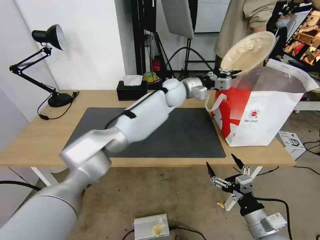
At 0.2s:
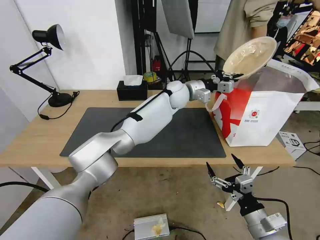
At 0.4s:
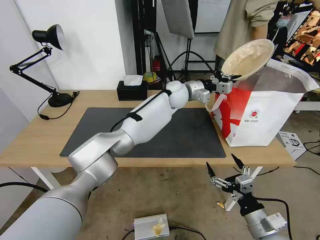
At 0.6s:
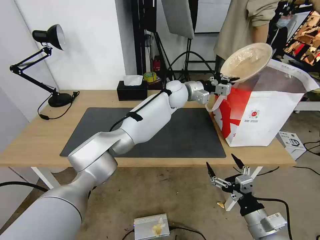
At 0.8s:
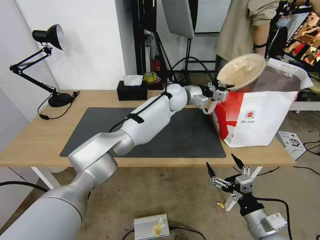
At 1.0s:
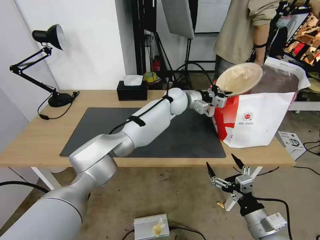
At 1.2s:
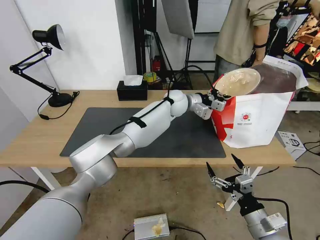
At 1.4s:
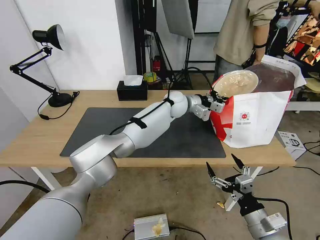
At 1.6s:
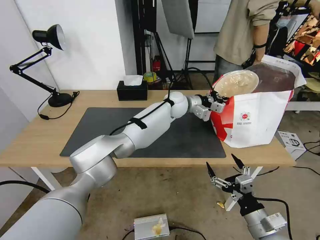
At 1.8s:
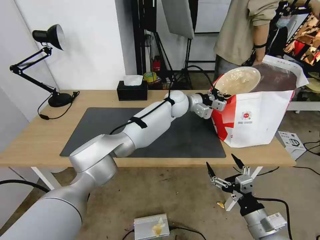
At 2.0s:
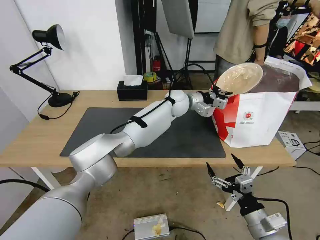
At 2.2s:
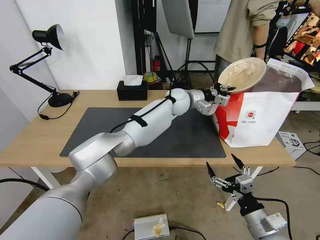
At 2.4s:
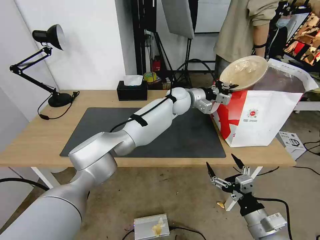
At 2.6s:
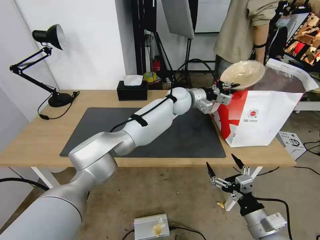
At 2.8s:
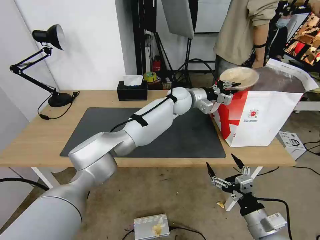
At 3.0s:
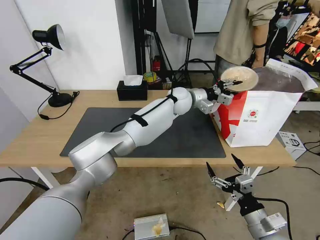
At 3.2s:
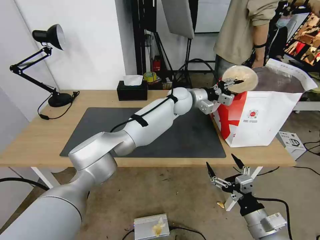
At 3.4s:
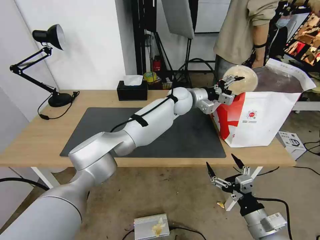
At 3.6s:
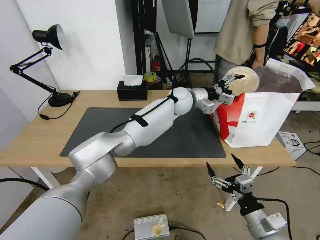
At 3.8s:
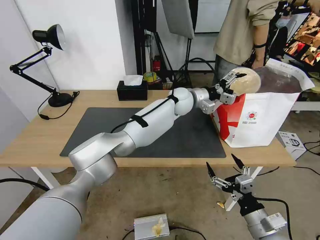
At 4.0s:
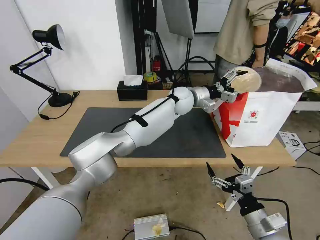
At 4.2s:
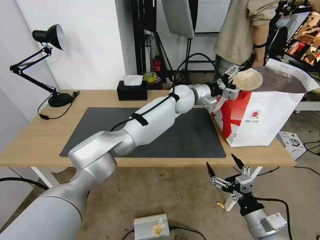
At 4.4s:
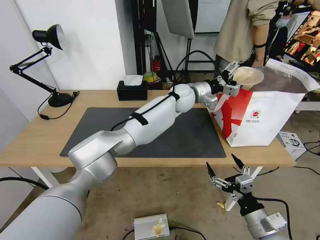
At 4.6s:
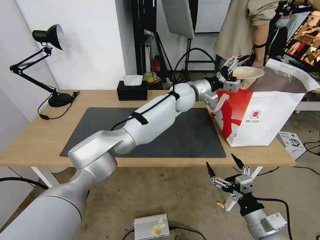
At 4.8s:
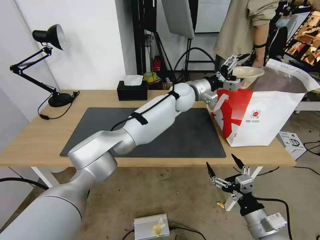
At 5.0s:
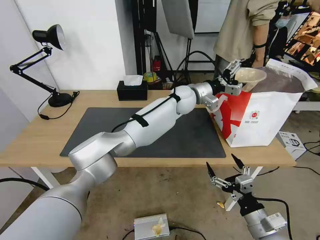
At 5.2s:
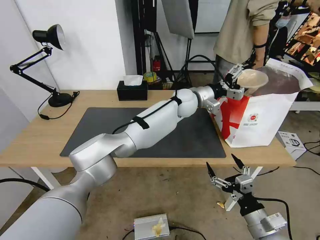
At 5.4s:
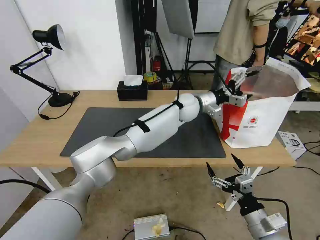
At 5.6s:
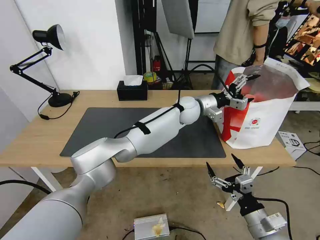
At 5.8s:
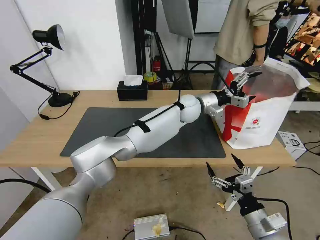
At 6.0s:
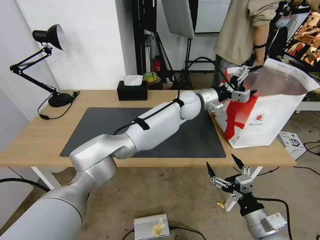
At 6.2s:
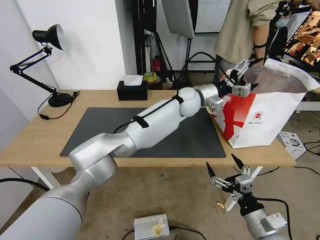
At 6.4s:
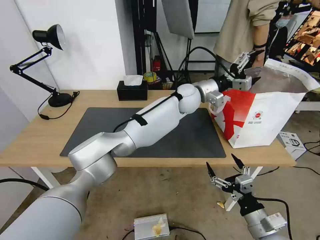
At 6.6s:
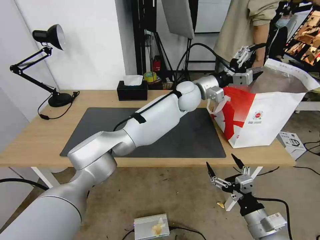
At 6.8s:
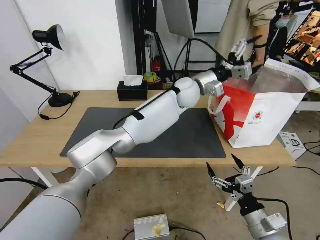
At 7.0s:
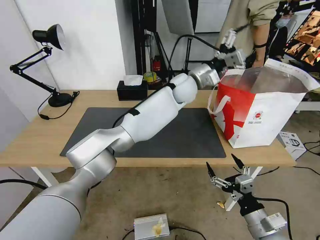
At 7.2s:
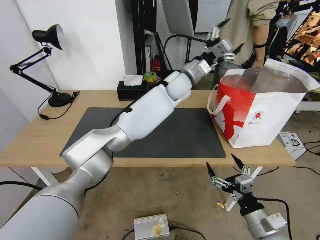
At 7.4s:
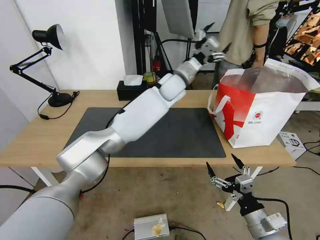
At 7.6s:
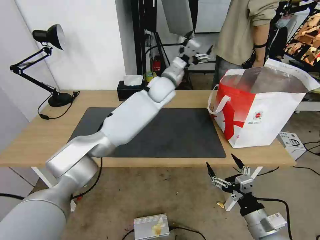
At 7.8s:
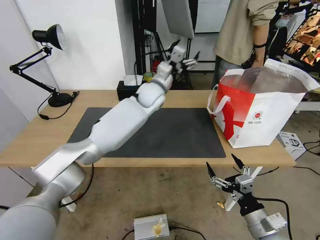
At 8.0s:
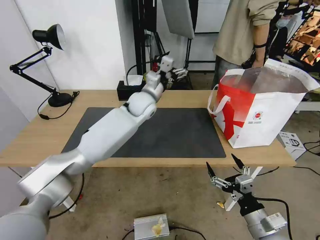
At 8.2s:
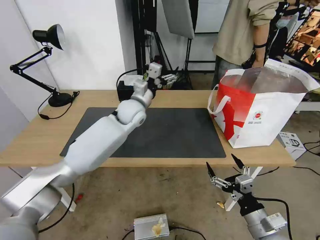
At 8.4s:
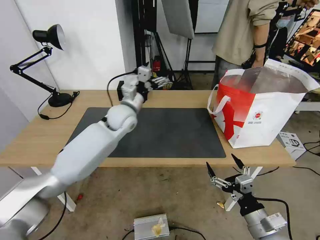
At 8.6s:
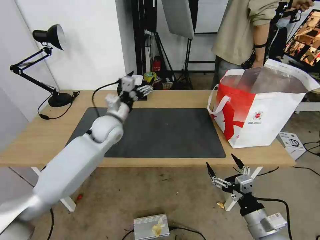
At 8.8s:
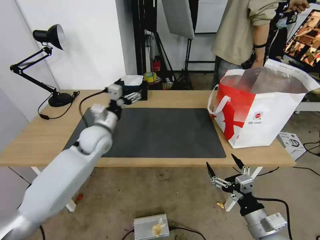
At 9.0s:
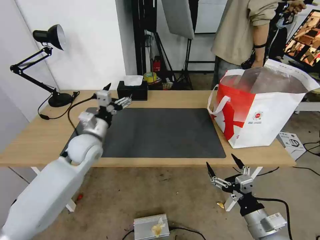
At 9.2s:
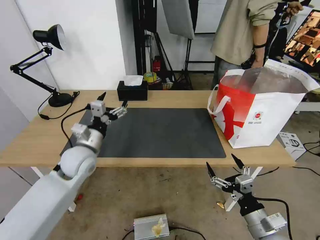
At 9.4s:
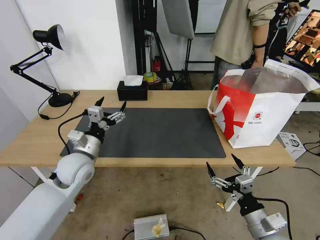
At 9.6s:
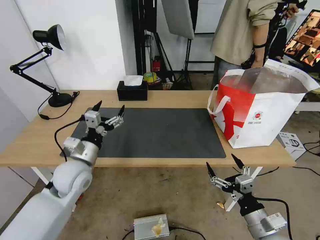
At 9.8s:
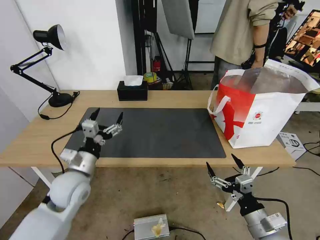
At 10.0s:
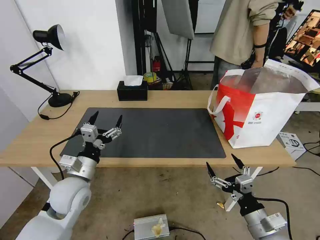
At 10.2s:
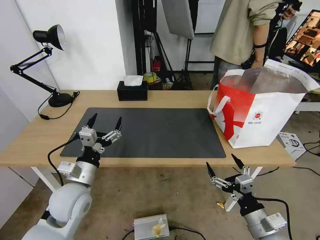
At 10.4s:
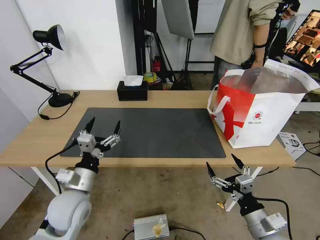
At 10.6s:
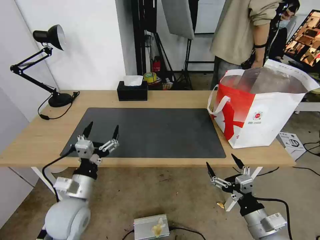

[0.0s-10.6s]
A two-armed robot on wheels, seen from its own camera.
Task of the whole recording: Pick up the trash from the table and place it into the takeout bag.
0.0s to 1.6s: The left gripper travels downward by roughly 5 cm.
1.6s to 3.0s: The left gripper opens up.
3.0s to 4.6s: The left gripper opens.
4.6s to 6.0s: The grippers stay close to where they were, moving slightly.
6.0s to 7.6s: The left gripper shifts some 10 cm to the left.
7.6s to 9.0s: The left gripper moves to the left, backward and downward, roughly 30 cm.
9.0s to 10.6s: The left gripper is displaced backward by roughly 15 cm.

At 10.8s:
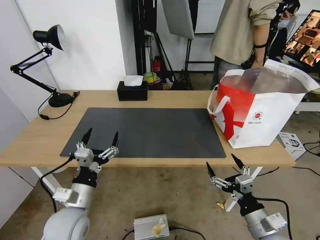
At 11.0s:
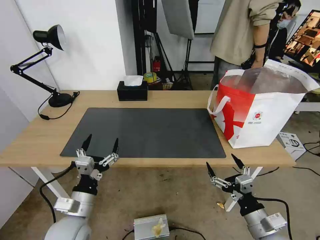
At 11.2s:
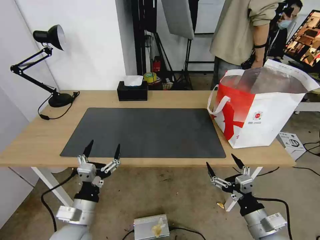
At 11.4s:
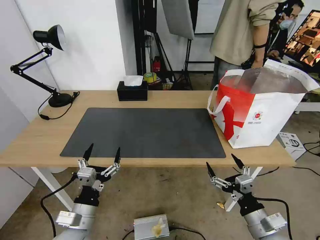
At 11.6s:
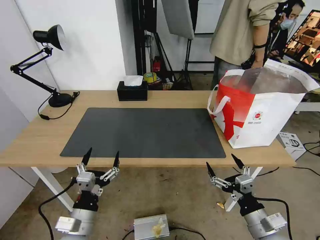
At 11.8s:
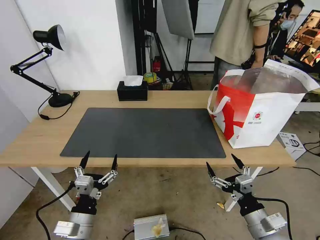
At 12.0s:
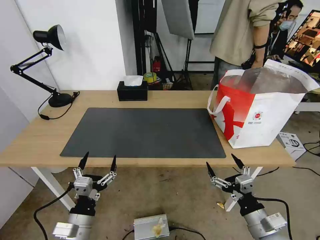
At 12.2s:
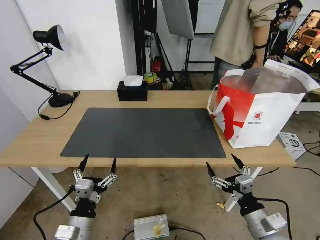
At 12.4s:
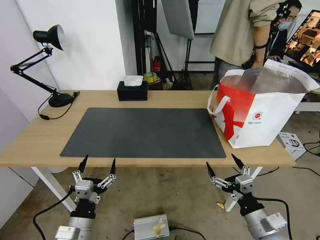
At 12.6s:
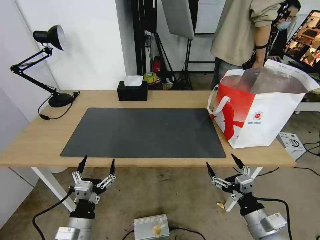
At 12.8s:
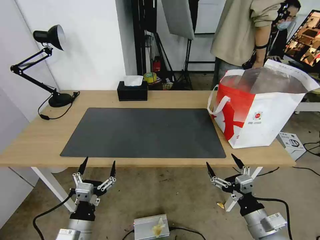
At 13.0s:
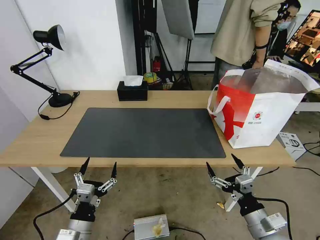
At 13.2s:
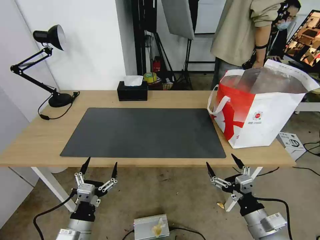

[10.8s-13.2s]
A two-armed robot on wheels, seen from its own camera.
Task of the whole recording: Pick up the trash from the table and place it into the takeout bag.
10.8s to 12.0s: The left gripper goes some 5 cm backward.
12.0s to 13.2s: There are only small adjustments of the grippers.

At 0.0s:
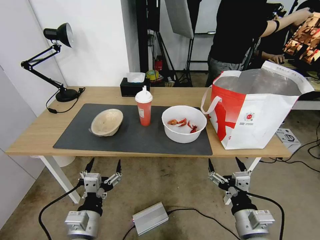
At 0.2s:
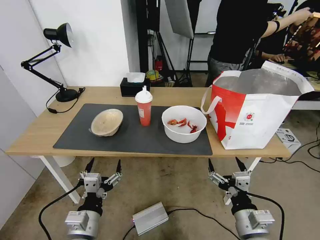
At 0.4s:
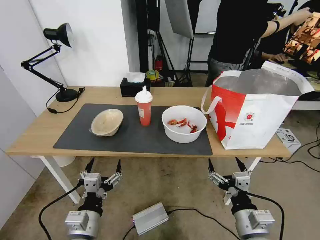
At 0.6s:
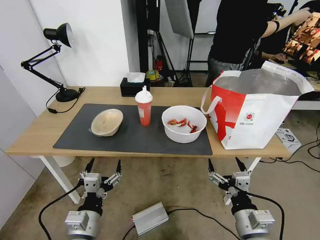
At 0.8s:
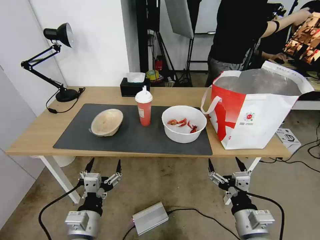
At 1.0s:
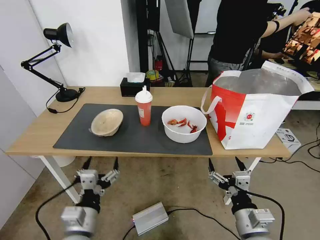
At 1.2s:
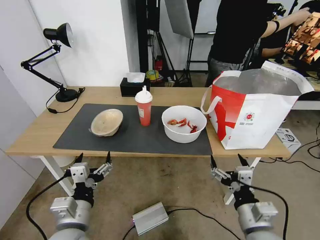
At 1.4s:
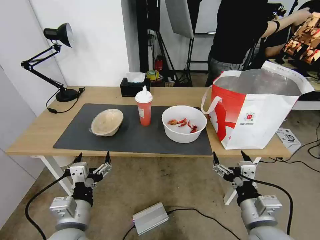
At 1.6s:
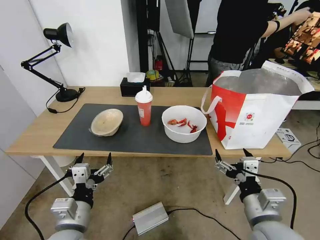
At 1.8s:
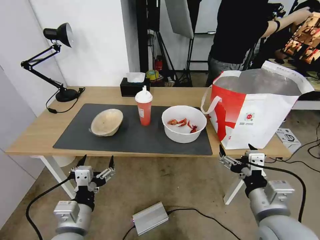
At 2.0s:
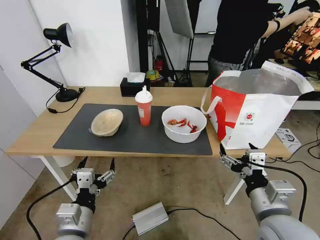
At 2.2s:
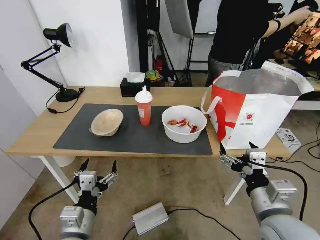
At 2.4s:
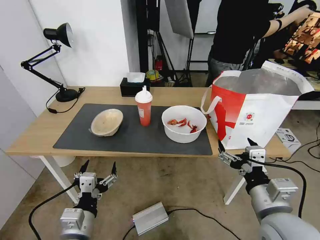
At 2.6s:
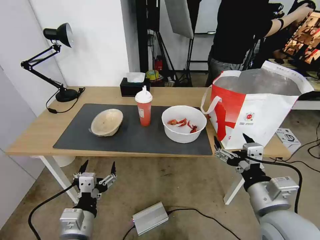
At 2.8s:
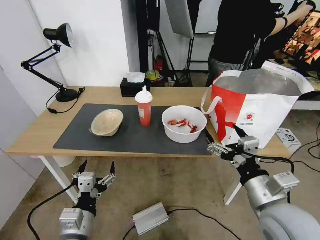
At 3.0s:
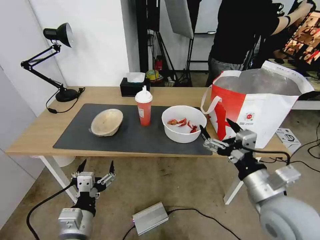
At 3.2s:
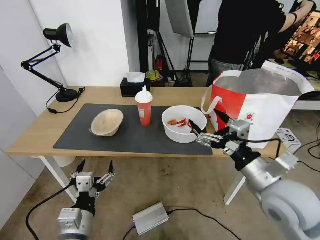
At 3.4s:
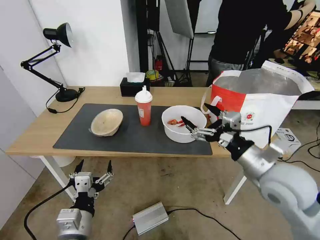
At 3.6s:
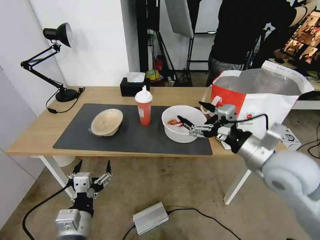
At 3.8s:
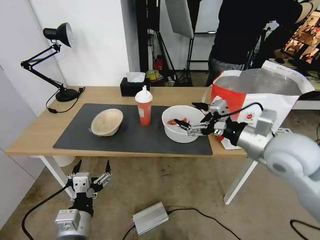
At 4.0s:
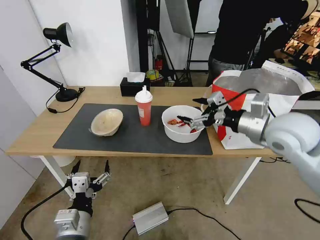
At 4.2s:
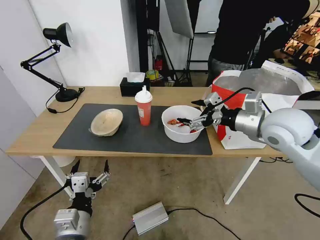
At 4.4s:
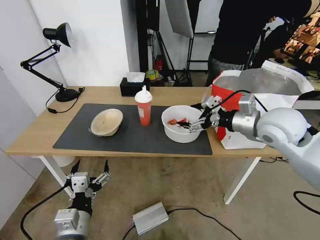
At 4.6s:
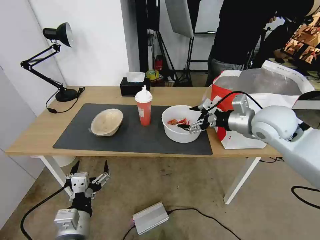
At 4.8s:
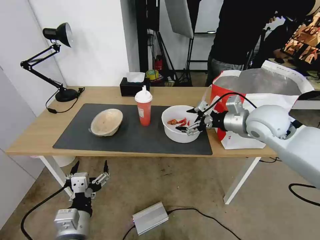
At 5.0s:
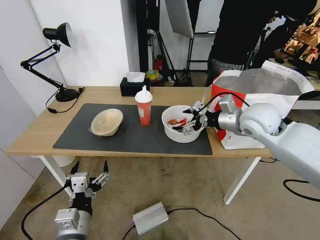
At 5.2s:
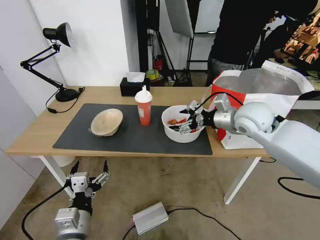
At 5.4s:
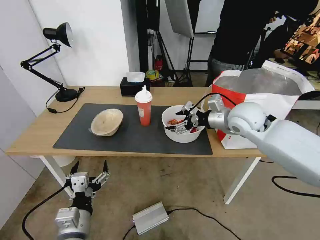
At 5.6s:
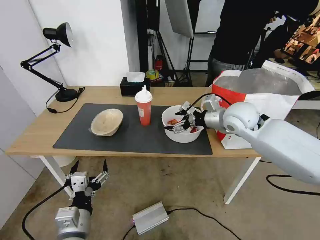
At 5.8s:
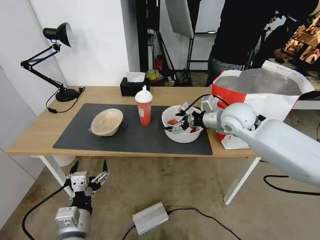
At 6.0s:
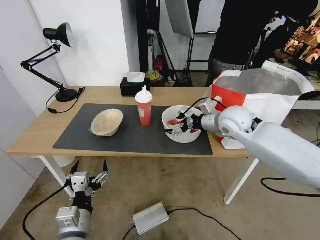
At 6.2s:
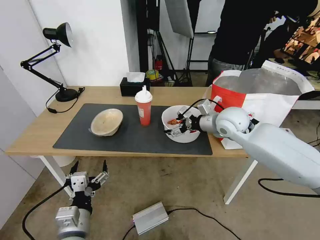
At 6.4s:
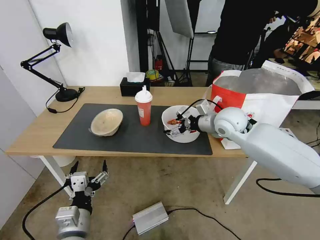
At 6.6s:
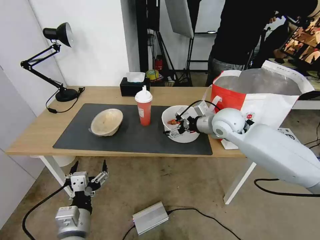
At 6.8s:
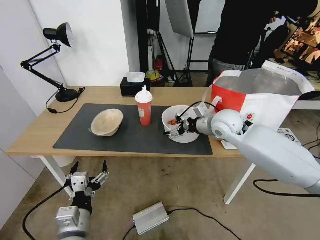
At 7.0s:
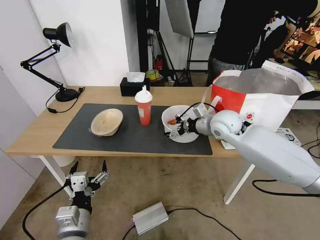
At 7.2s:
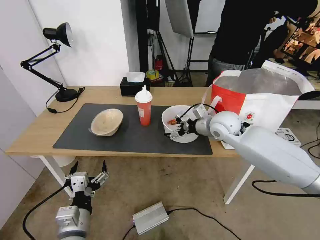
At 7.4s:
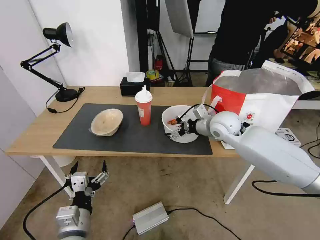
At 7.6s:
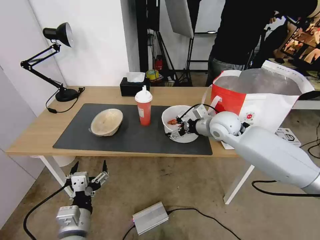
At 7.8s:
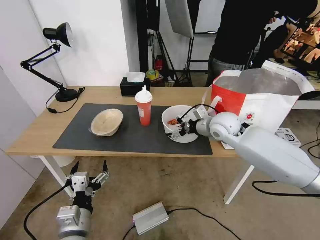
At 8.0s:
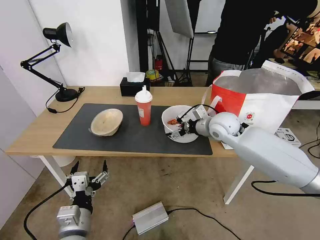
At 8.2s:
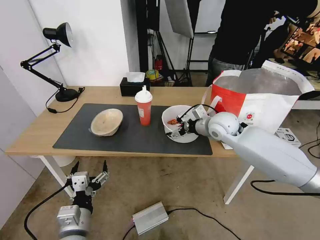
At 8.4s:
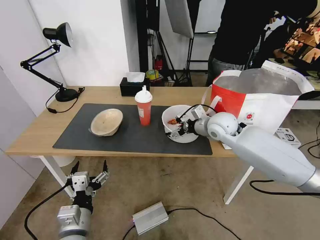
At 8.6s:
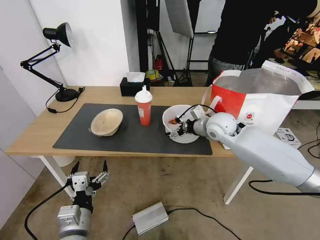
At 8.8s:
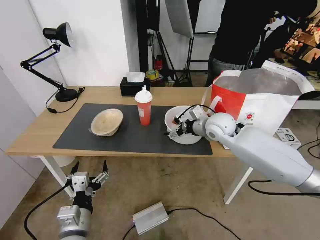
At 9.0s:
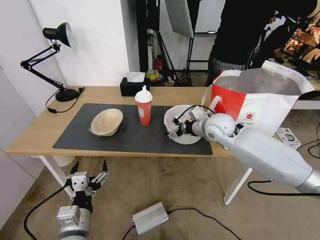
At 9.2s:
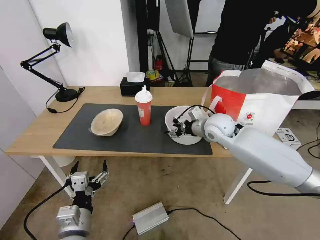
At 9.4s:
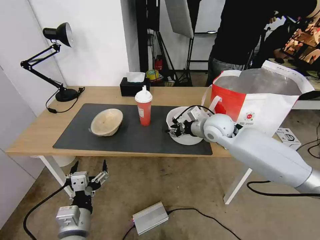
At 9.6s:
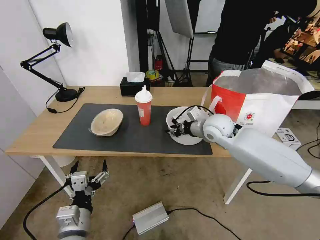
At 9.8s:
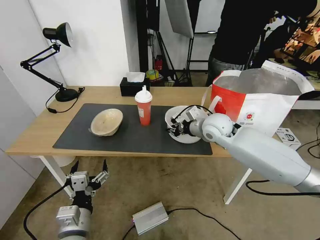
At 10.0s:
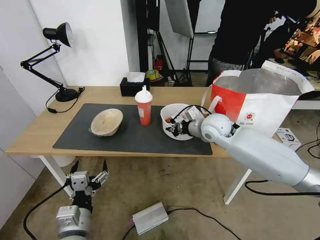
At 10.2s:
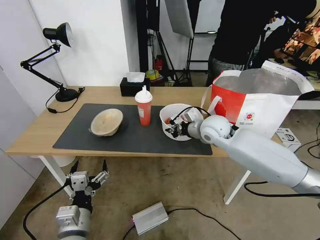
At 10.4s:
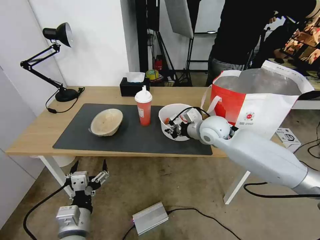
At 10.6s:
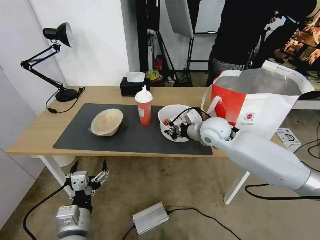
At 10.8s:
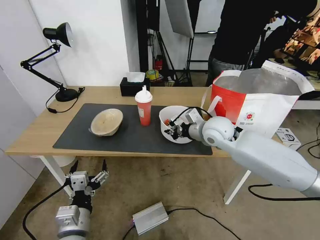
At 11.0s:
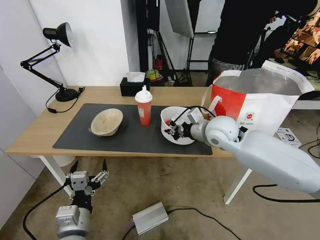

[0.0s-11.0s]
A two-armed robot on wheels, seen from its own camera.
Task of the whole recording: Pick up the trash from the table and place it into the takeout bag.
1.6s to 3.2s: The right gripper is displaced upward and forward by about 10 cm.
3.2s to 4.8s: The right gripper moves forward, about 20 cm.
4.8s to 6.2s: The right gripper moves to the left, forward and downward, roughly 10 cm.
6.2s to 7.8s: The grippers make only small movements.
7.8s to 9.4s: The right gripper closes.
9.4s to 11.0s: The right gripper closes up.
